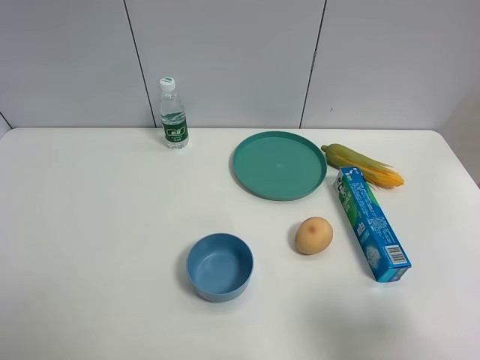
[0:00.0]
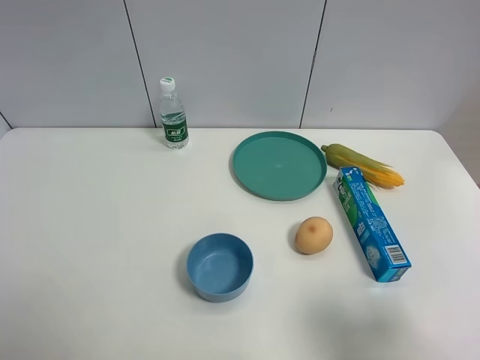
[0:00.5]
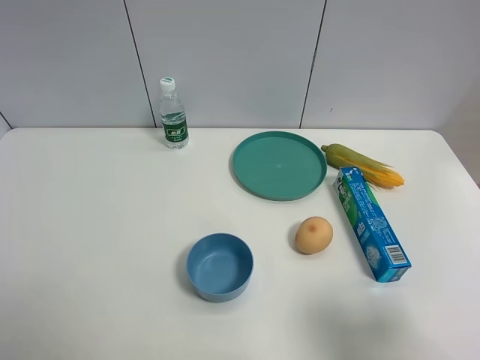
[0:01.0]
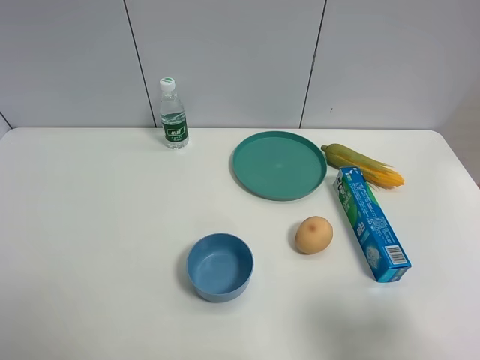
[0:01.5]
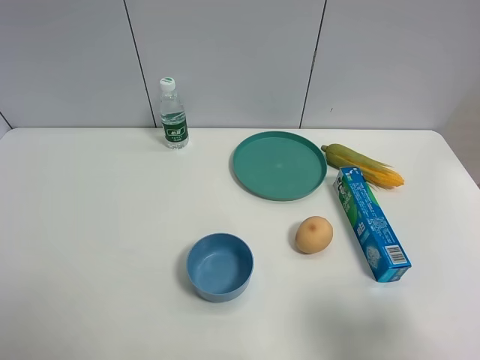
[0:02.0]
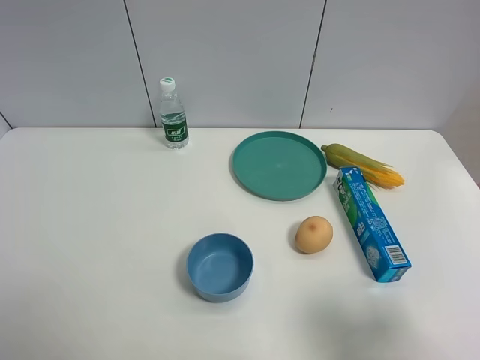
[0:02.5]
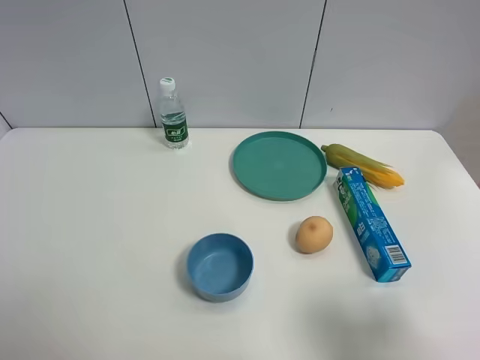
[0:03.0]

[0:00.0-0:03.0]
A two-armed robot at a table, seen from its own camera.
Task of the whole recording: the gripper move the object.
0:01.5 to 0:03.0: Both grippers stay put.

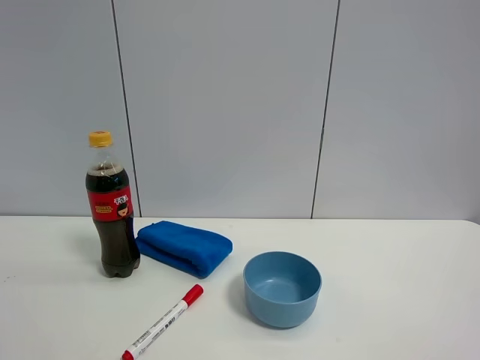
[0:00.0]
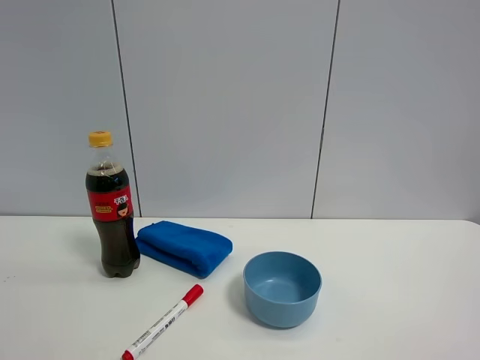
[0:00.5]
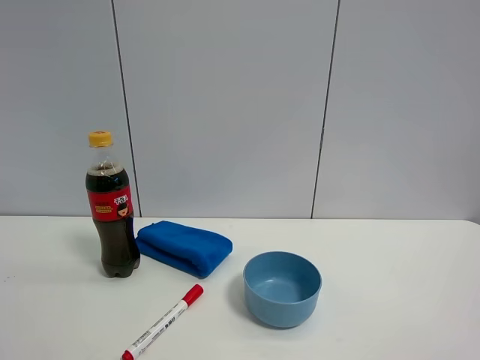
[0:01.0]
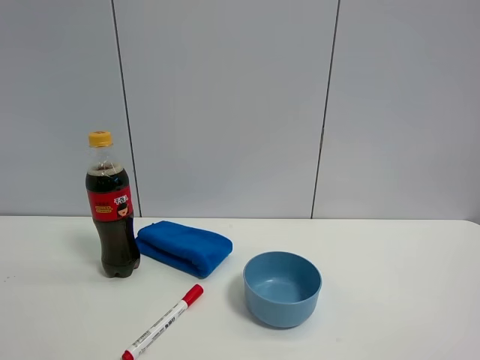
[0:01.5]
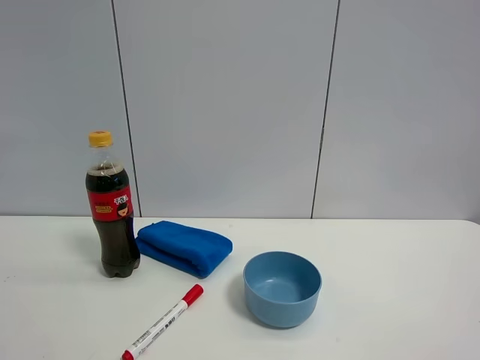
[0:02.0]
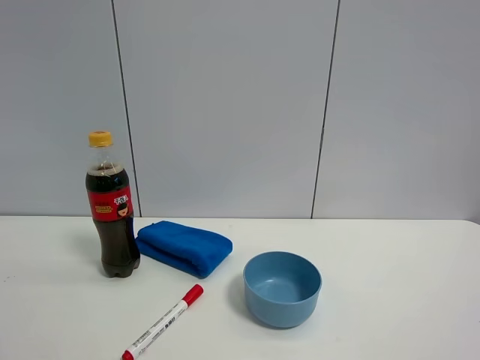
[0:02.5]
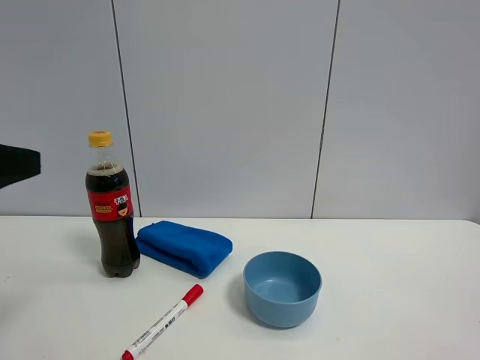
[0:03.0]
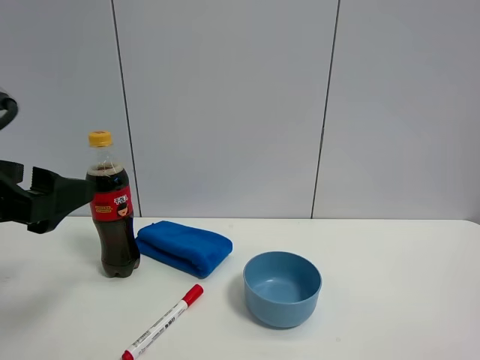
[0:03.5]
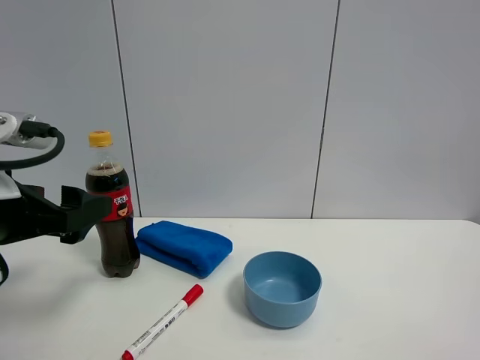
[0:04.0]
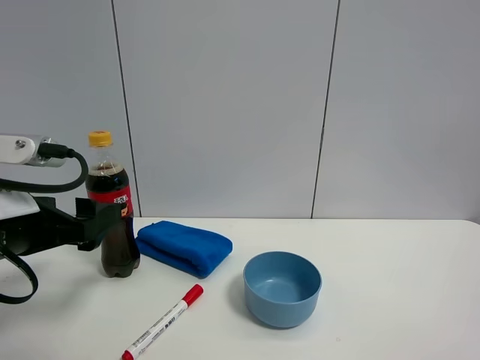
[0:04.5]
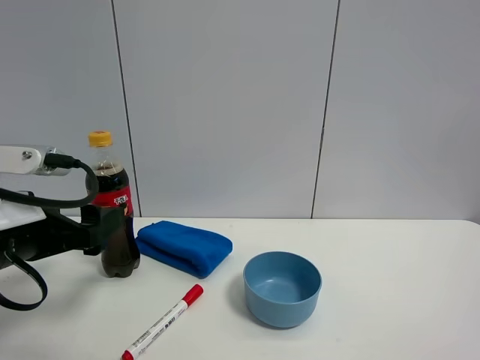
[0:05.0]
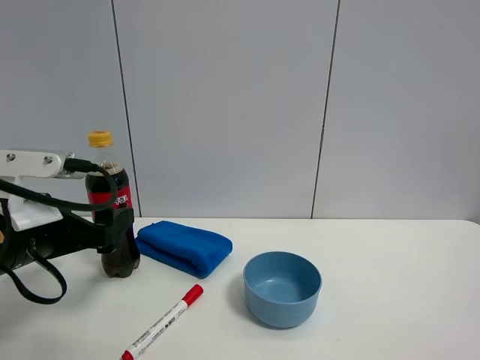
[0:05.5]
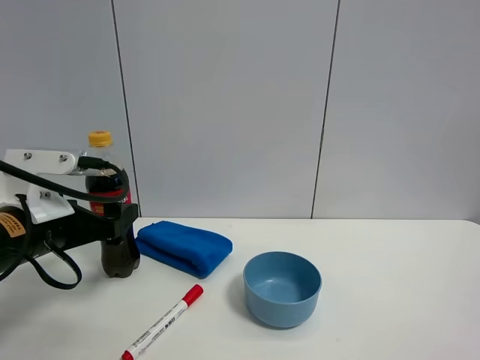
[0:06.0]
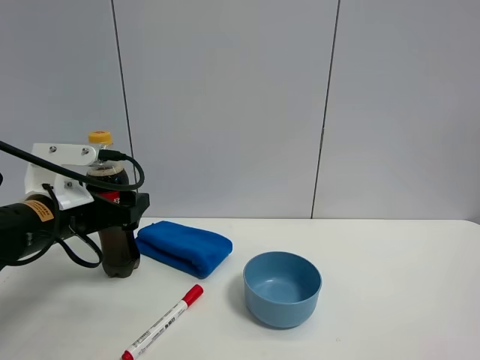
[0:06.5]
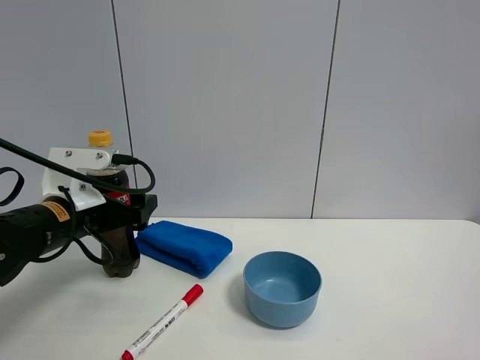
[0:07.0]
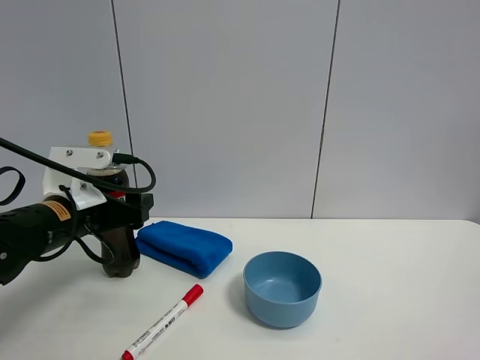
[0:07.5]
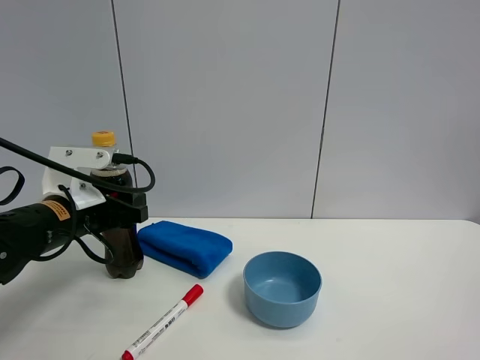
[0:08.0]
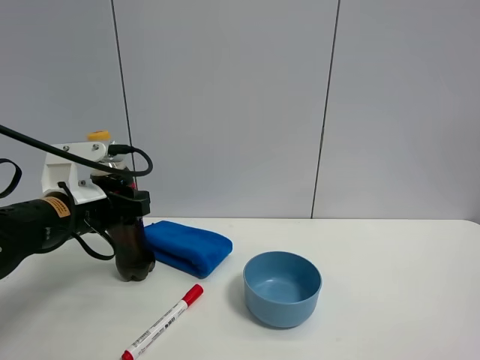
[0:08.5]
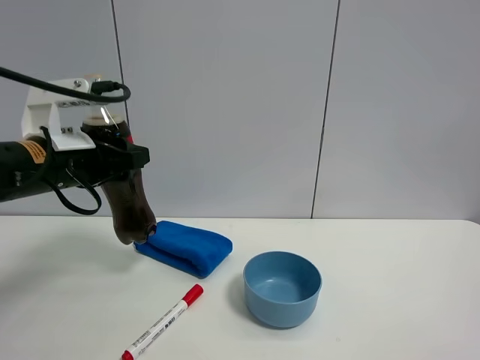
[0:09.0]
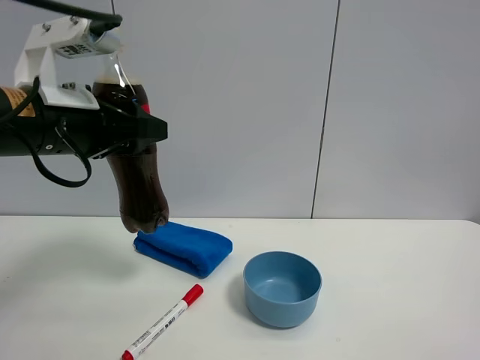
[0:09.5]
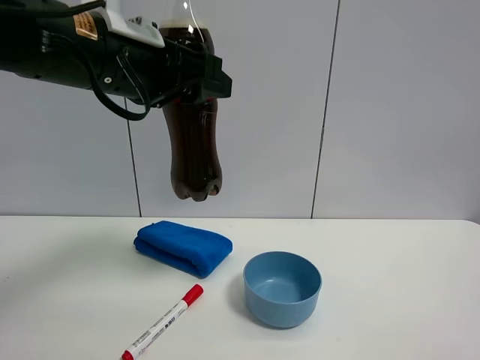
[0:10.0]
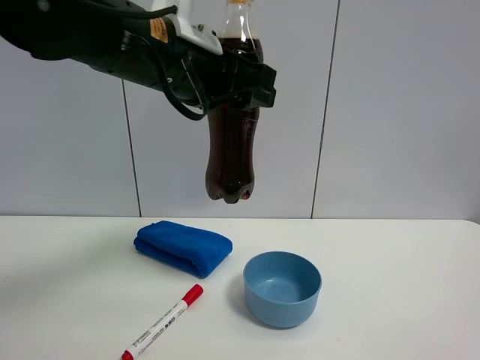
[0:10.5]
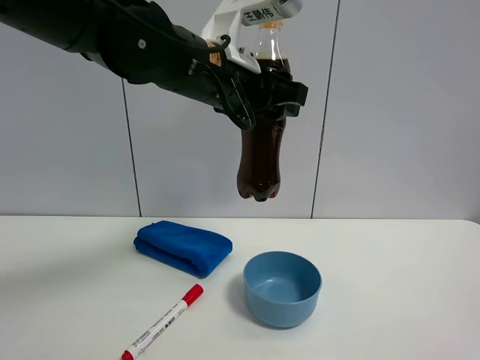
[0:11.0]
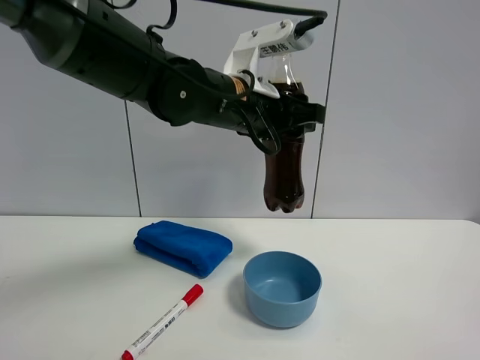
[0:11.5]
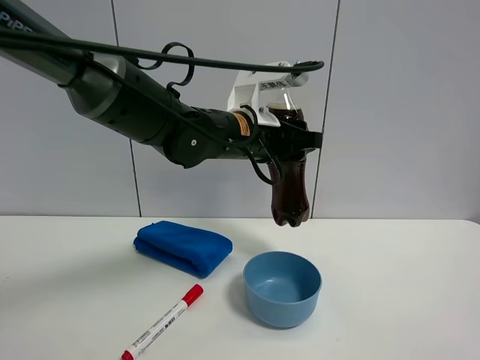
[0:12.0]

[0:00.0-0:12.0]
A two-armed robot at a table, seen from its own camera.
Task of the whole recording: the gripper move the object.
Step, 0:00.0 to 0:07.5: Grasp the coke with the left gripper.
0:02.0 to 0:04.0: The left gripper is displaced forward, downward and to the right by about 25 cm.
0:04.0 to 0:06.0: The left gripper moves forward and downward, roughly 10 cm.
0:06.0 to 0:08.0: The left gripper travels forward by approximately 5 cm, and closes its fingers.
0:08.0 to 0:10.0: The left gripper shifts approximately 20 cm upward and to the right.
0:10.0 to 0:12.0: The left gripper is displaced to the right, forward and downward by about 20 cm.

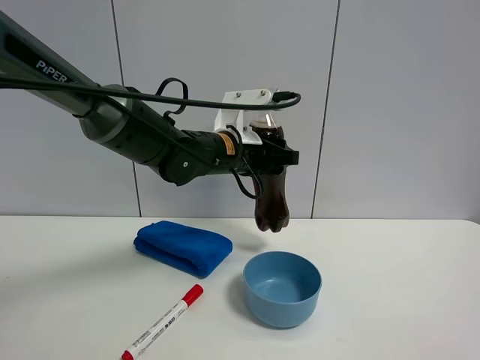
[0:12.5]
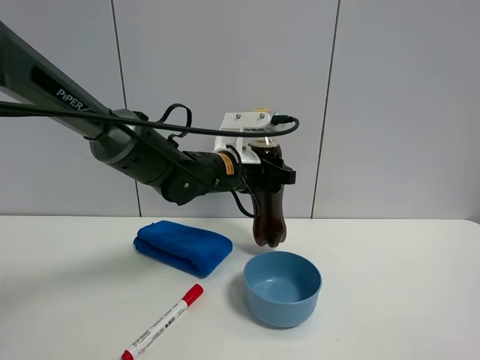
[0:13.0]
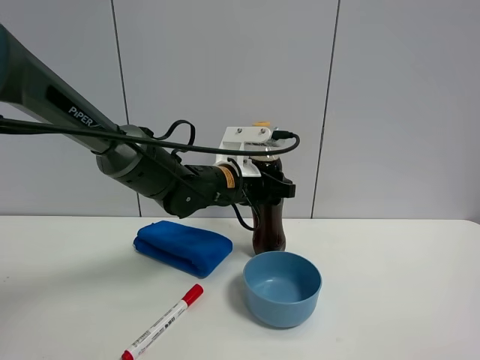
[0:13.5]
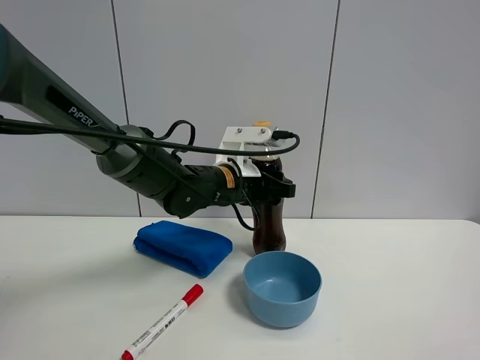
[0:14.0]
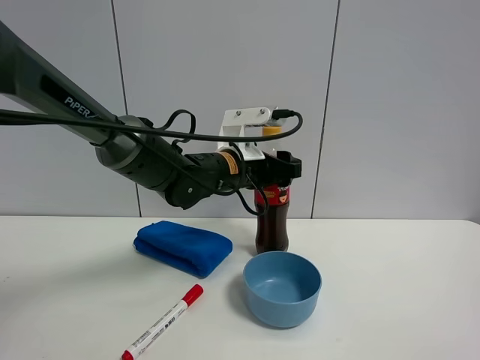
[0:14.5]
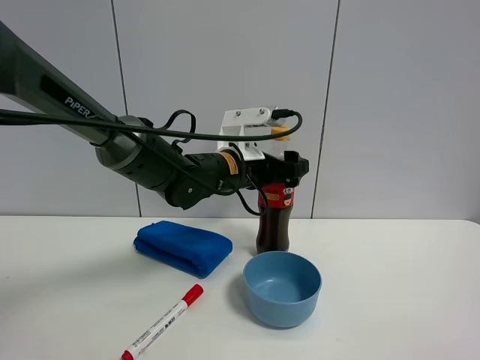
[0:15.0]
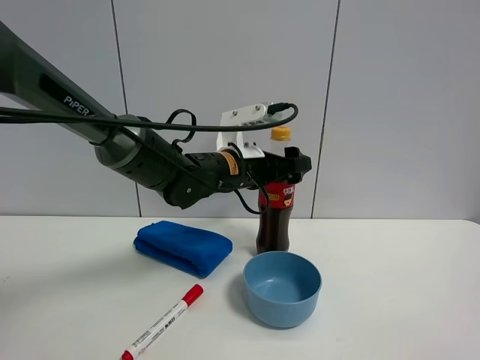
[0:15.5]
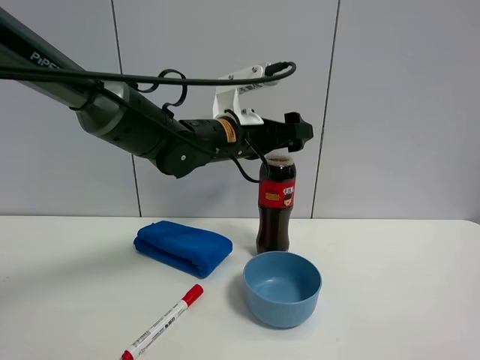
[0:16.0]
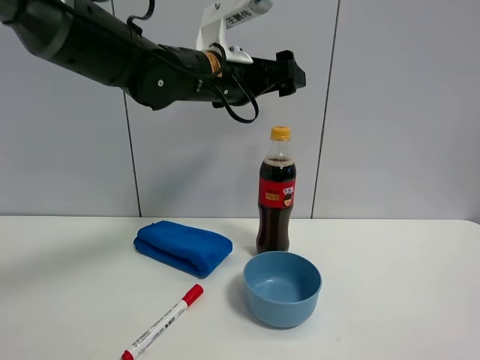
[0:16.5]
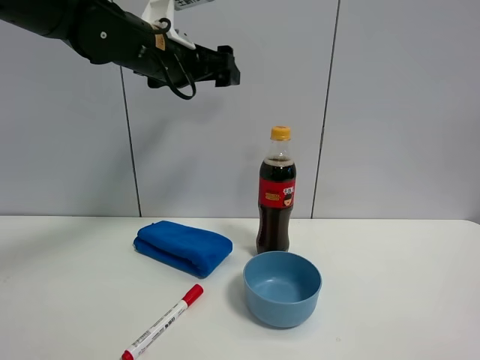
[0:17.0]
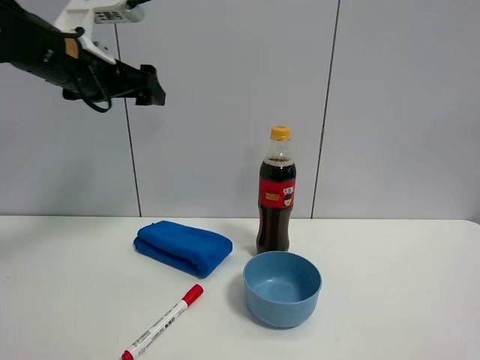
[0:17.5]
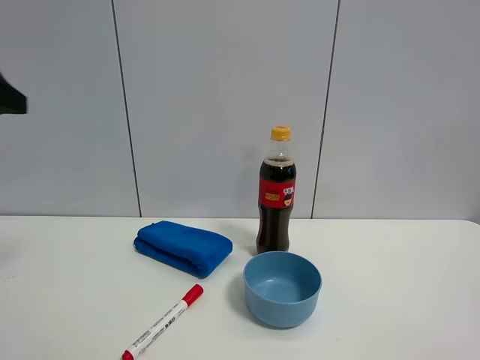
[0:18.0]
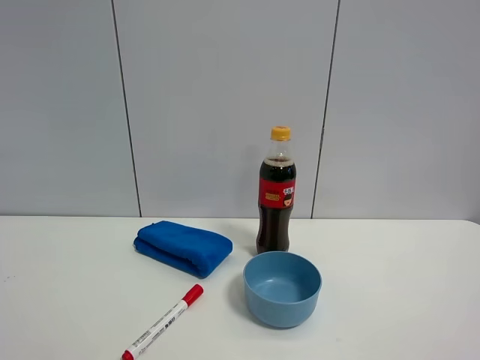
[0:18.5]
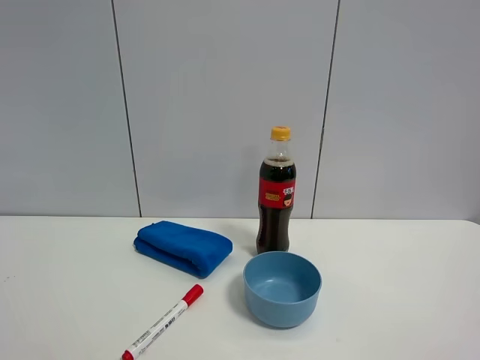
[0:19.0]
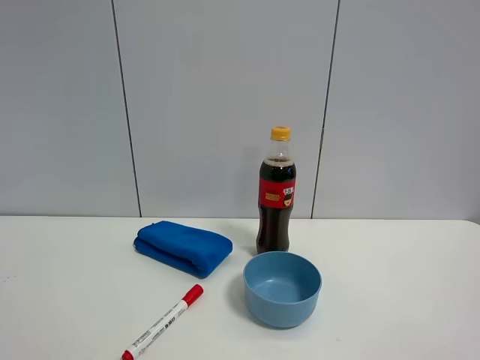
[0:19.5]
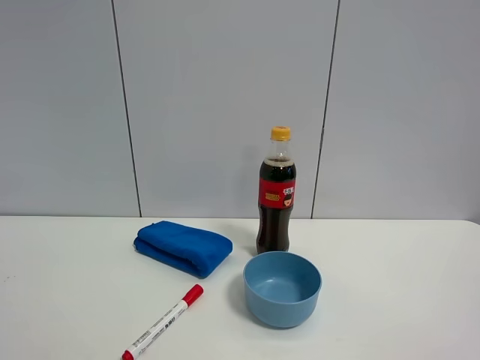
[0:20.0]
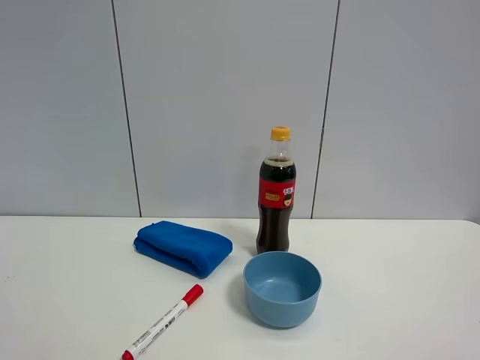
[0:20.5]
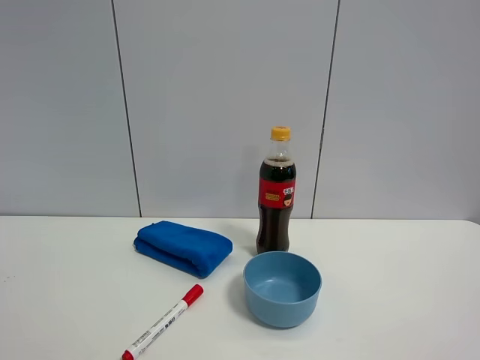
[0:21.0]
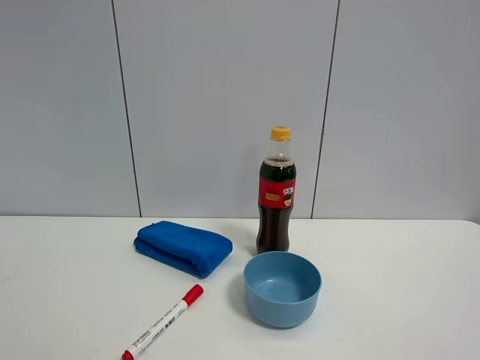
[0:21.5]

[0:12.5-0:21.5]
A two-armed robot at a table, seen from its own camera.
Task of the whole recording: the gripper move the object.
0:12.5 to 0:14.5: The grippers make only small movements.
0:14.5 to 0:17.0: The left gripper heads upward and to the left, covering some 20 cm, and opens its fingers.
0:17.0 to 0:19.5: The left gripper moves backward and to the left, about 50 cm.

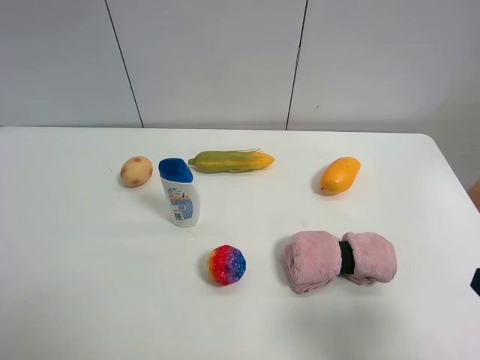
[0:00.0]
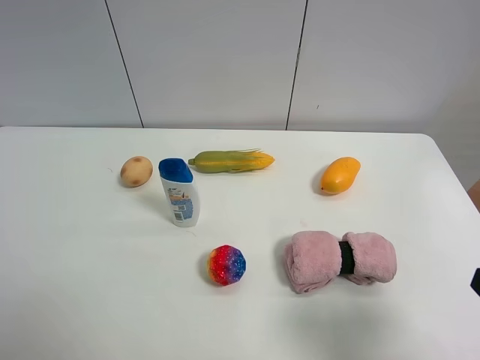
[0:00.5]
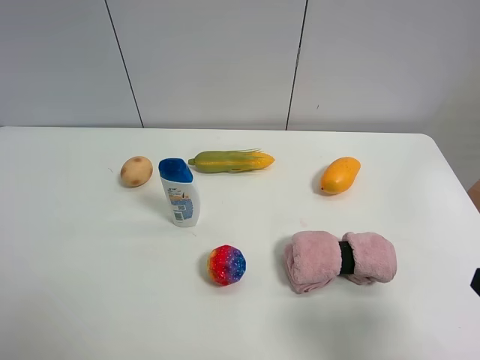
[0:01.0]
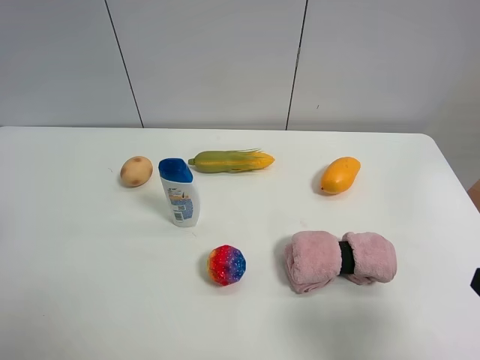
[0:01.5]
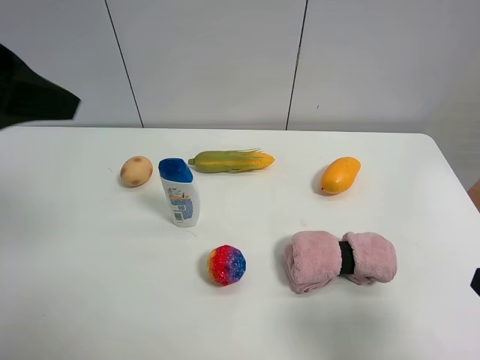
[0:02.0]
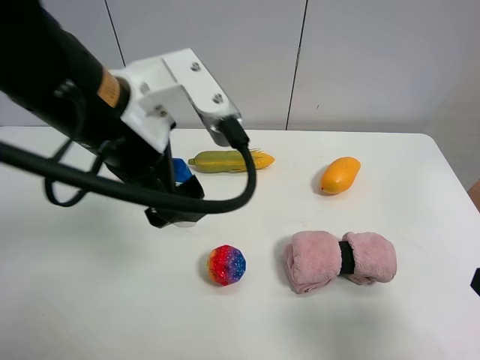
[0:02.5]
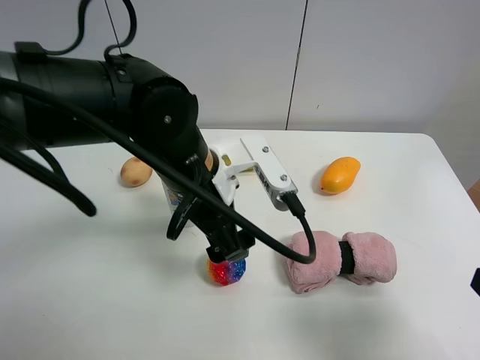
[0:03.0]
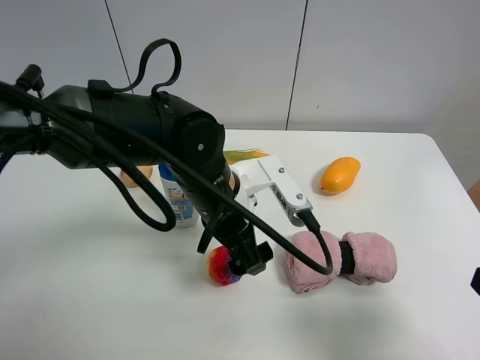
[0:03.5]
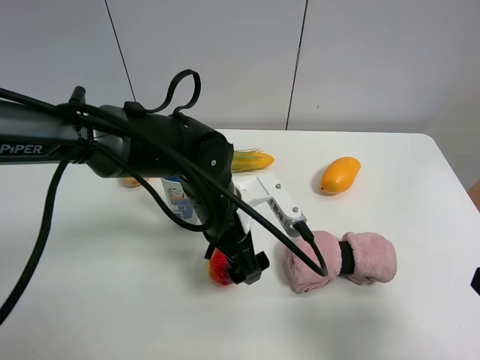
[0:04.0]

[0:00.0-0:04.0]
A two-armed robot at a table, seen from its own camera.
Task of the whole recording: the gripper move the object.
0:00.0 to 0:02.0: The left gripper travels forward, upward and to the right by some 25 cm.
0:02.0 to 0:04.0: The left gripper shifts approximately 35 cm downward and to the right.
